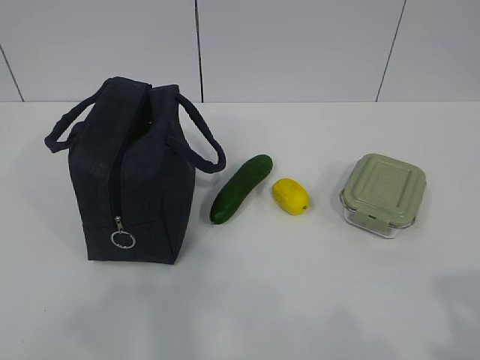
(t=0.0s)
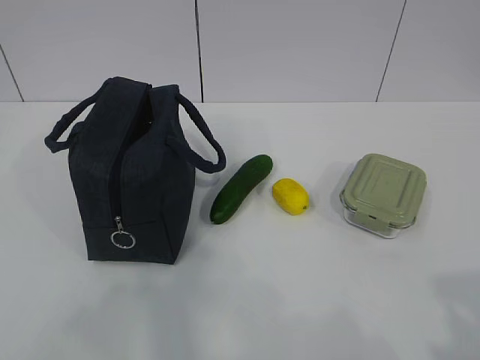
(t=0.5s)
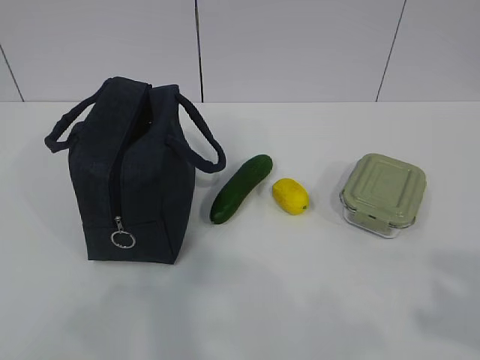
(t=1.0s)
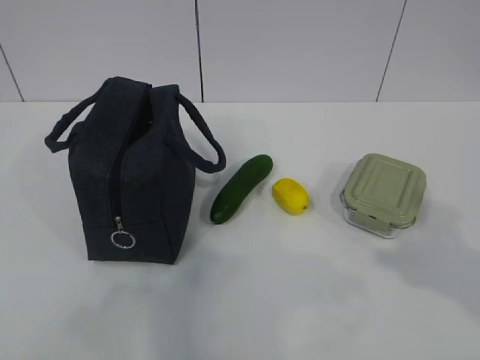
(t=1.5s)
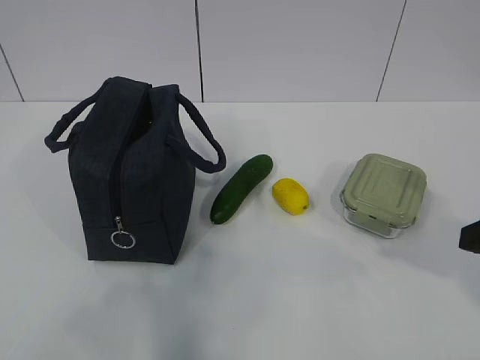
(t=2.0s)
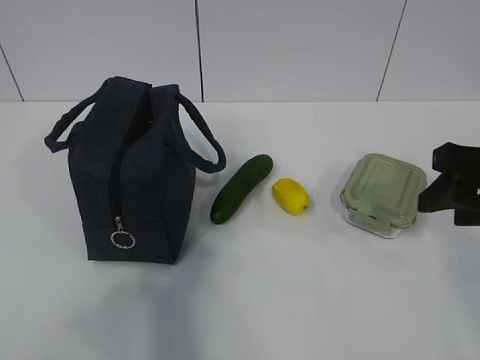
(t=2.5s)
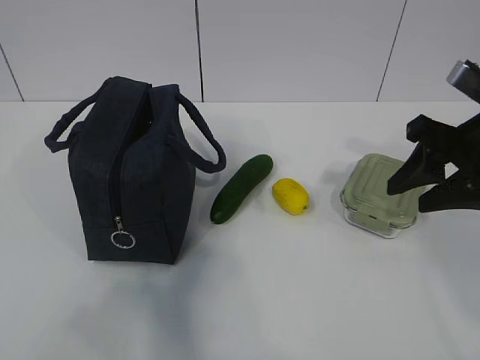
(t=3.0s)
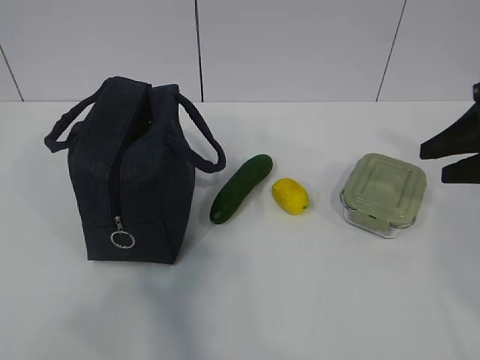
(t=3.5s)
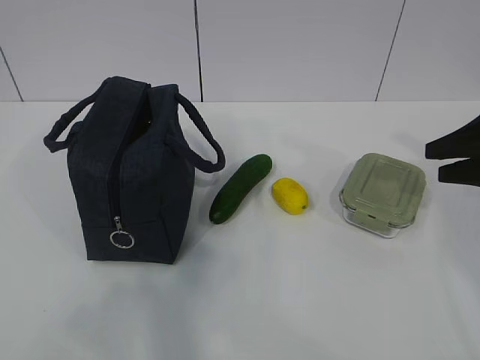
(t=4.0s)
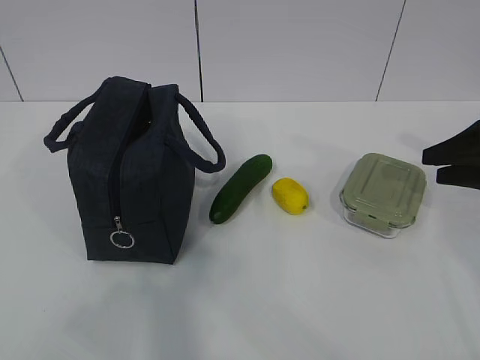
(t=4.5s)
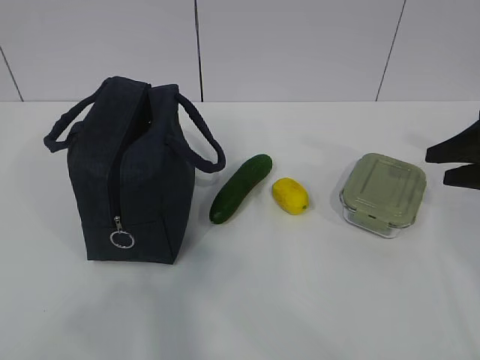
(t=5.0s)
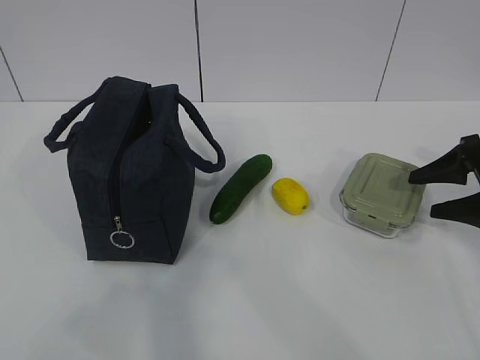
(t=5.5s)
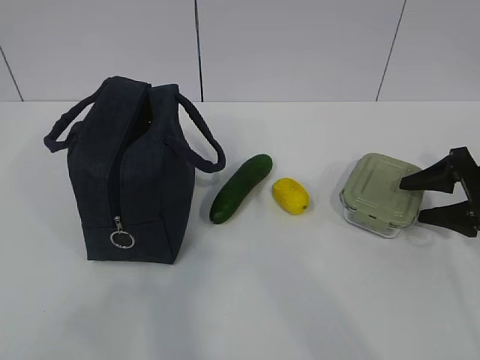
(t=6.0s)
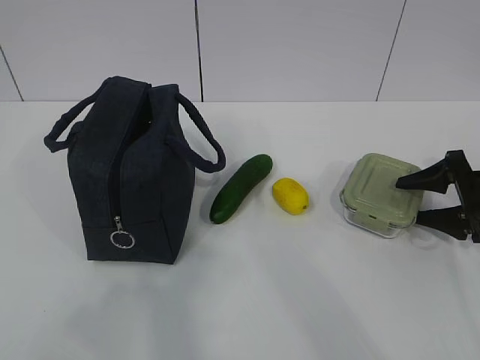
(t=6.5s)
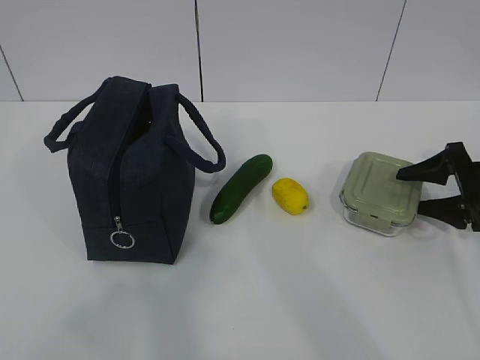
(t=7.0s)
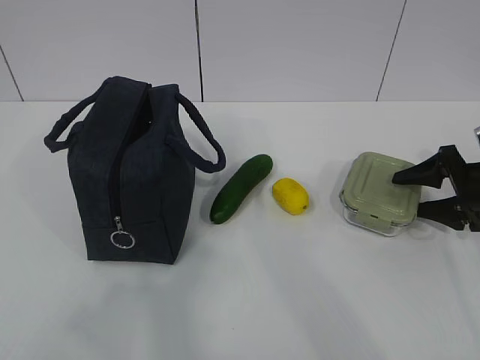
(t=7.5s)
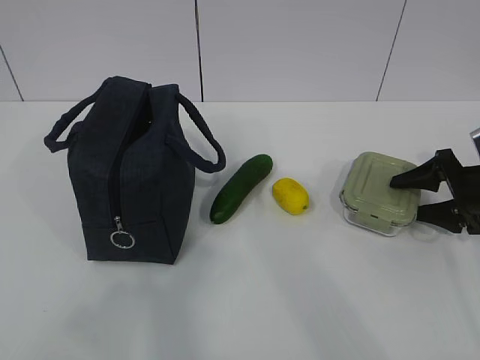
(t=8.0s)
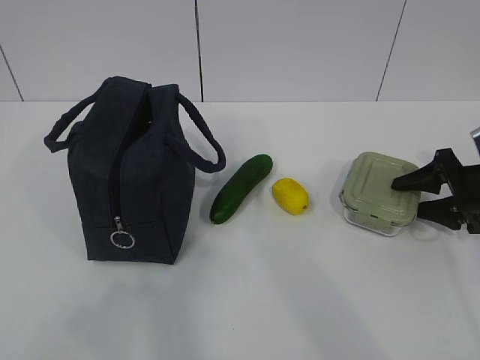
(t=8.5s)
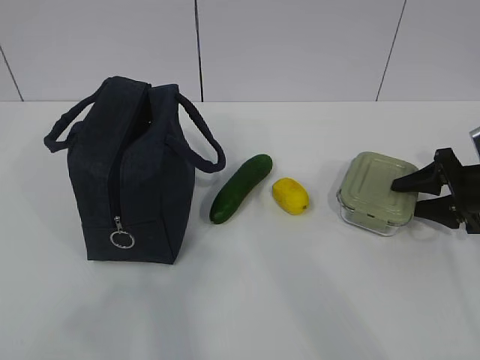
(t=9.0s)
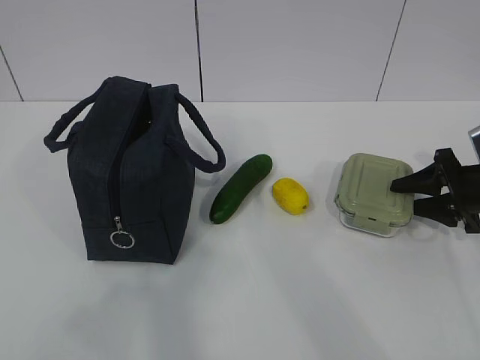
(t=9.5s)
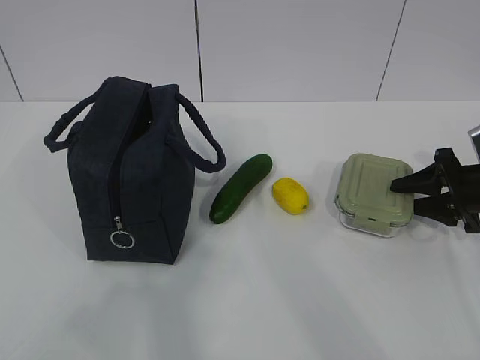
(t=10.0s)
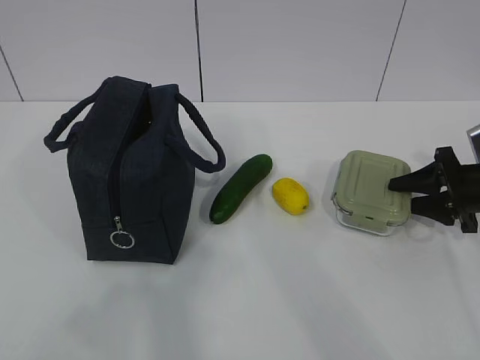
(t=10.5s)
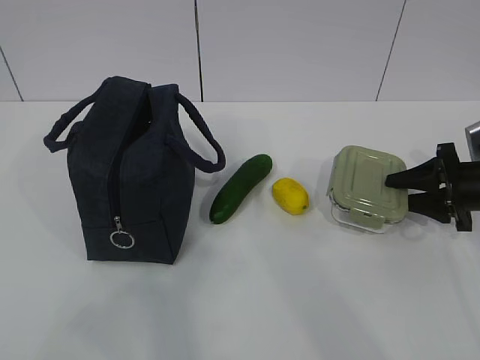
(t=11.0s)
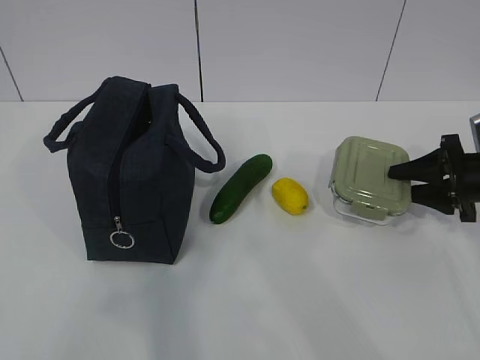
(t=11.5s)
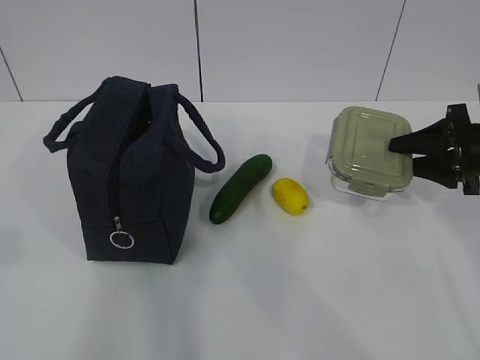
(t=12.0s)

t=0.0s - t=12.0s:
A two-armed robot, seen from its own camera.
Step, t=0.0s - t=8.5s: Grab the lunch box with your right hand.
Step, t=9.0s - t=11.5s: Grab the lunch bag with your left hand.
t=2.0s - t=4.0s: The right gripper is displaced forward and to the right by roughly 15 cm.
t=4.0s - t=6.0s: The right gripper is displaced downward by roughly 10 cm.
t=6.0s - t=8.0s: The grippers move only a little.
t=8.0s - t=10.0s: The right gripper closes.
t=10.0s - t=12.0s: The right gripper travels upward by approximately 5 cm.

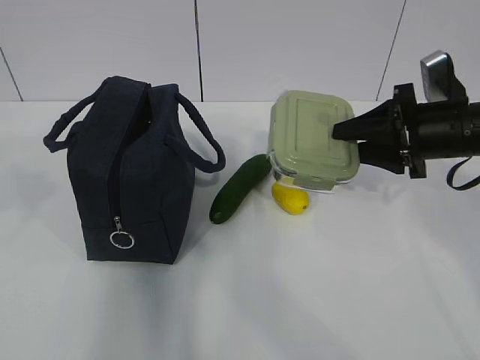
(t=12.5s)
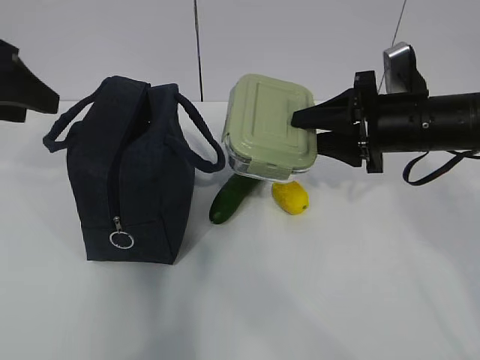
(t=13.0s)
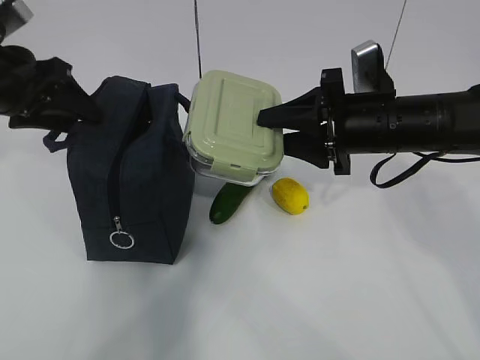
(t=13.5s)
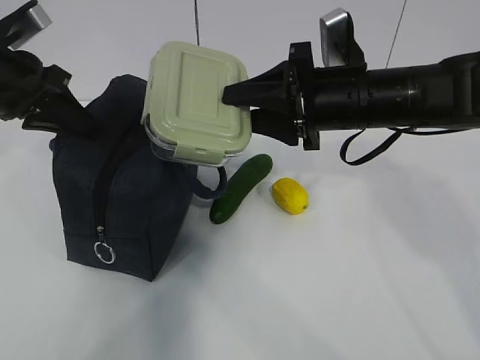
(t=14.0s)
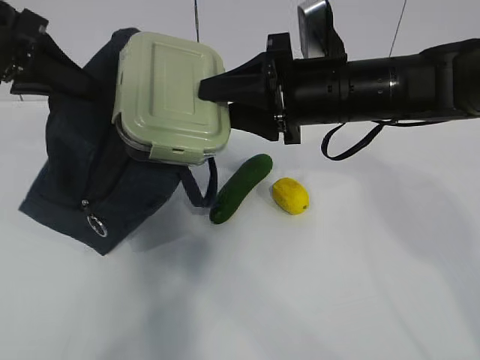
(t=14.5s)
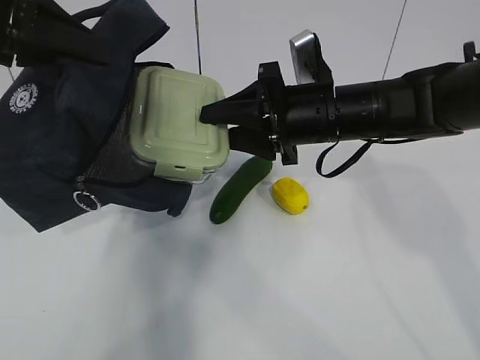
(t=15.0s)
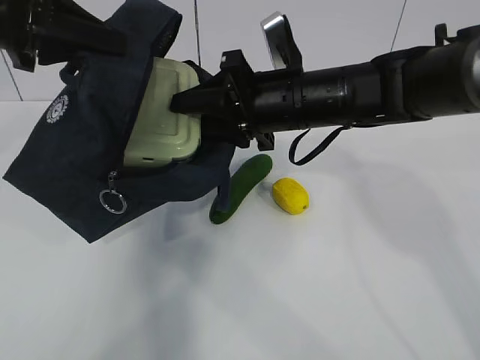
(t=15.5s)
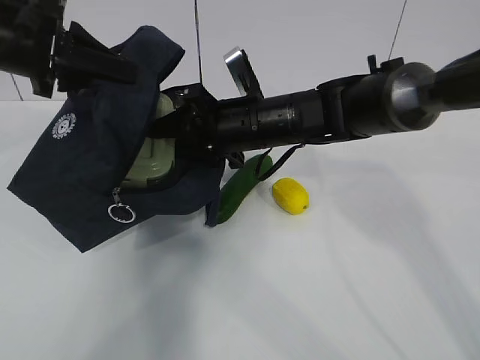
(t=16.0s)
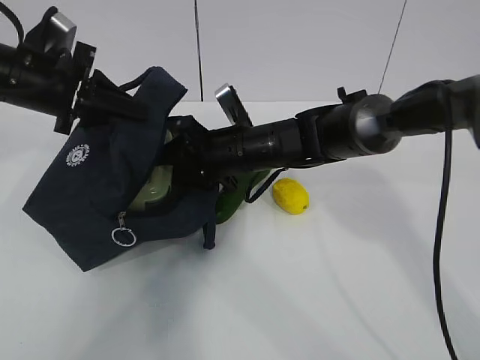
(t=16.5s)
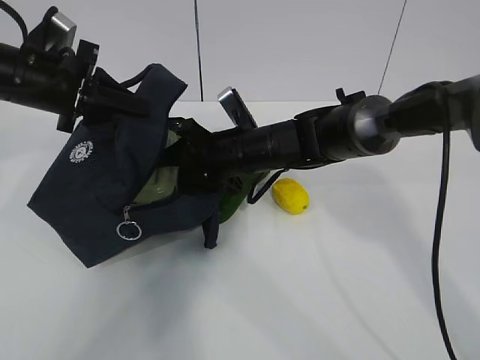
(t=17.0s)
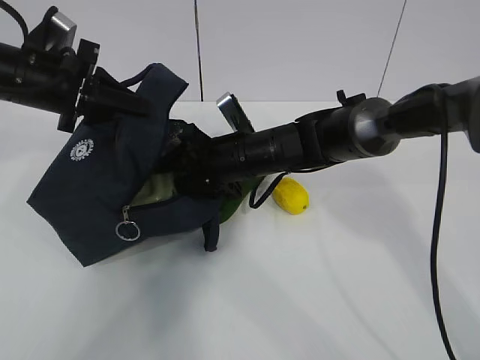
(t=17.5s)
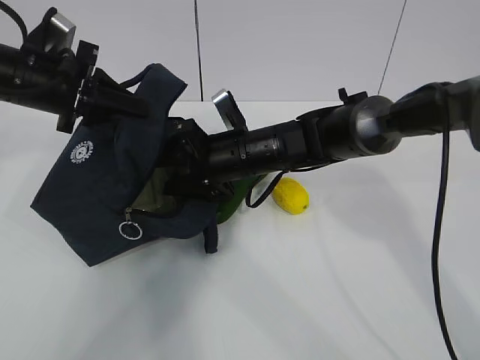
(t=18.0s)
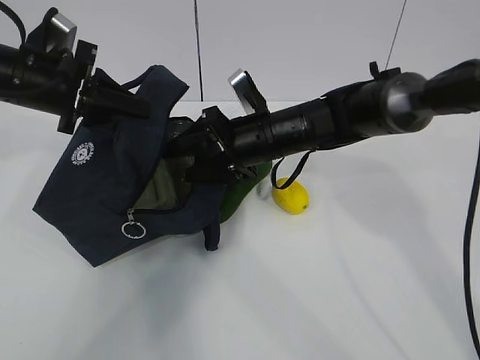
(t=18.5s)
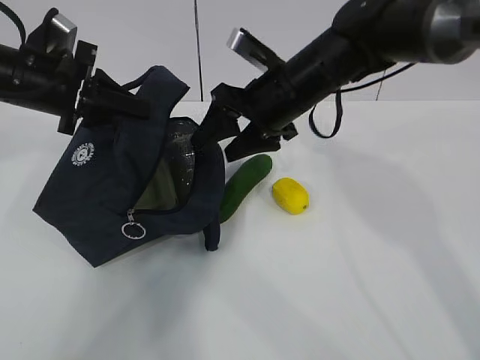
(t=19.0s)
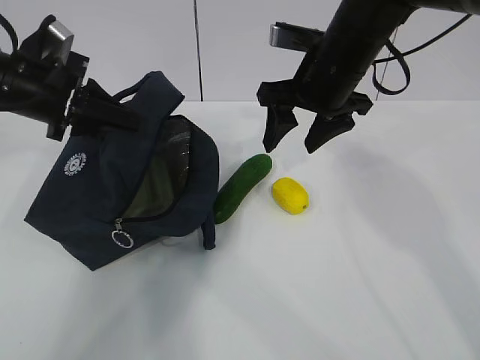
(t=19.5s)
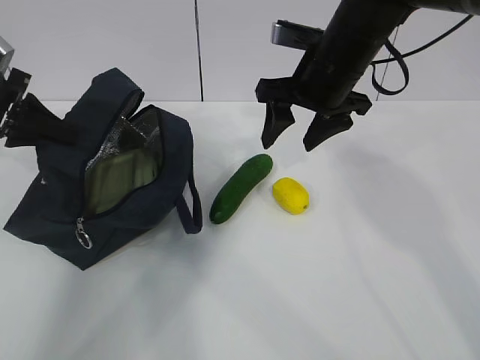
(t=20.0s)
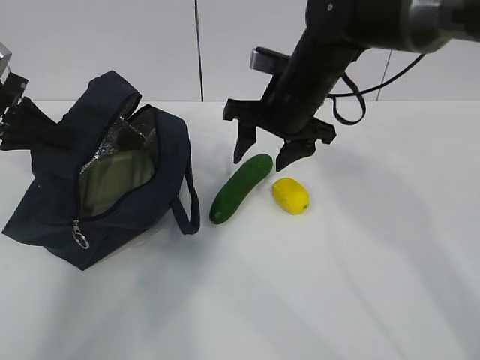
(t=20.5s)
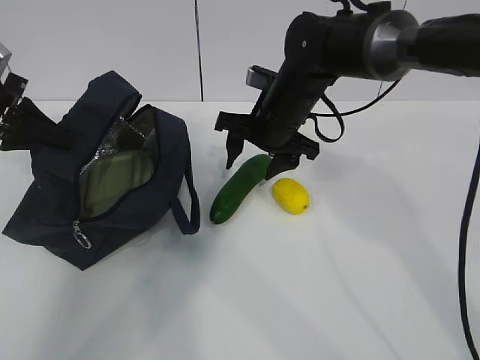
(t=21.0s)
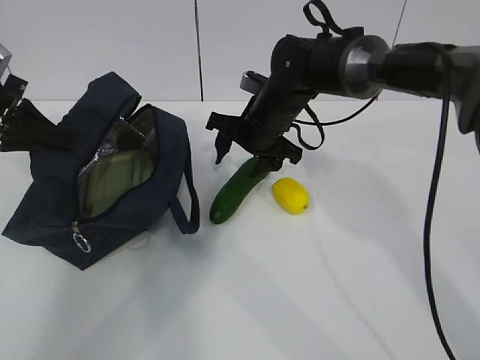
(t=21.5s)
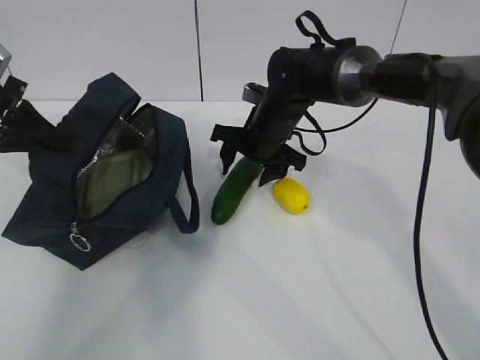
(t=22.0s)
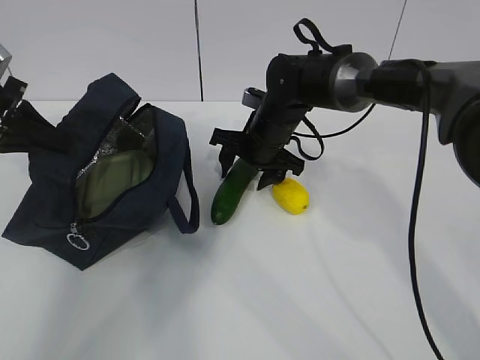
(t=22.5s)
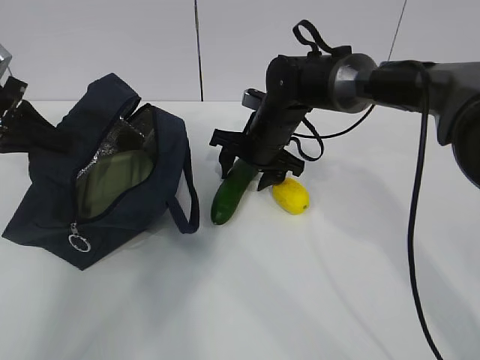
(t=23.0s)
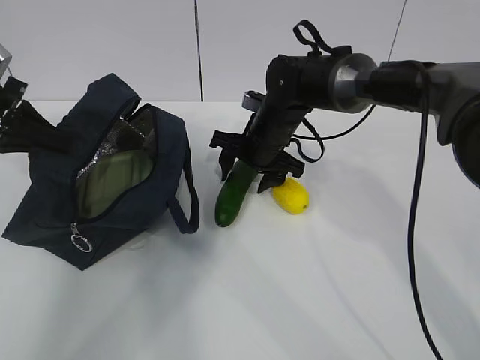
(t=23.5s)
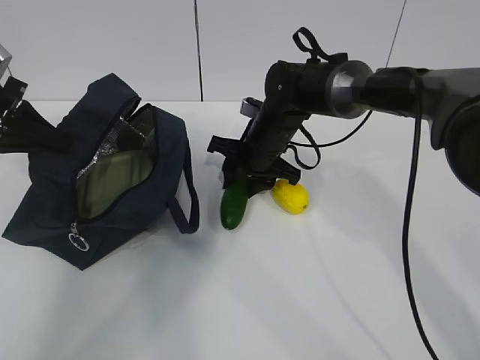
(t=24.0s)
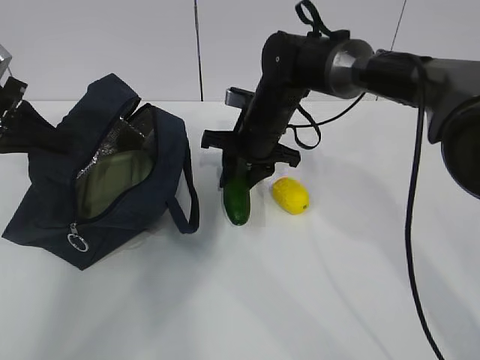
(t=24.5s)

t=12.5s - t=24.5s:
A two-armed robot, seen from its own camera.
Step, t=12.5s - t=14.5s: Place it into the bag with your right hand.
Step, t=15.0s - t=20.0s: Grab the cucumber with your right hand.
t=12.5s - t=14.5s: The left gripper is displaced forward by roughly 15 cm, and closes up; the right gripper shifts about 15 cm to the left.
t=14.5s - t=16.5s: The left gripper travels downward by roughly 5 cm. Meanwhile the right gripper travels downward, to the left and forward by about 15 cm.
t=16.5s - t=18.5s: The grippers make only small movements.
t=18.5s - t=20.5s: The right gripper heads upward, covering some 5 cm; the left gripper is displaced to the left by some 10 cm.
t=20.5s - t=22.5s: The right gripper shifts approximately 10 cm downward.
t=22.5s - t=24.5s: The right gripper closes its fingers.

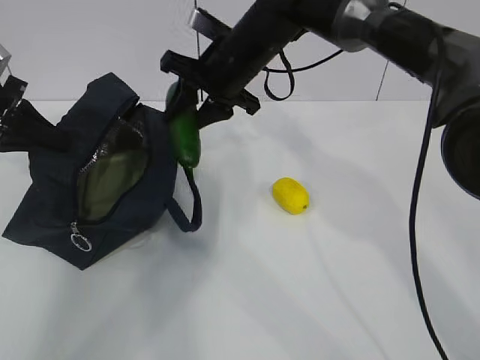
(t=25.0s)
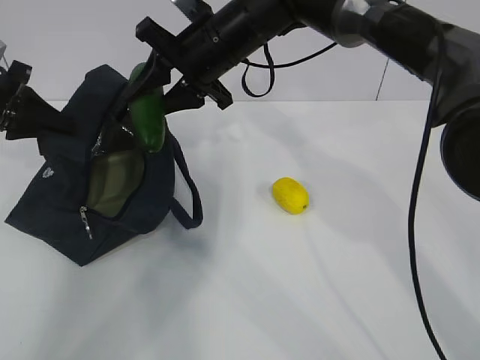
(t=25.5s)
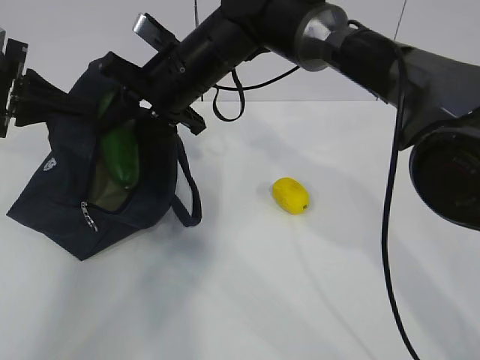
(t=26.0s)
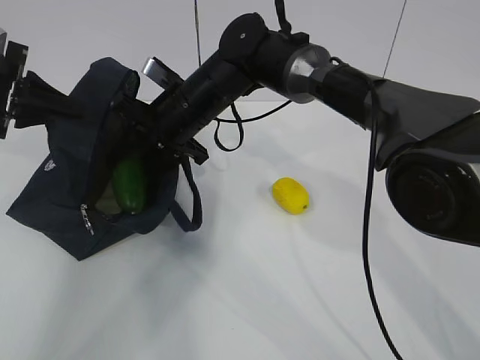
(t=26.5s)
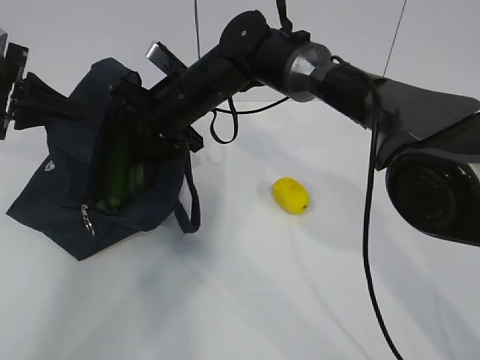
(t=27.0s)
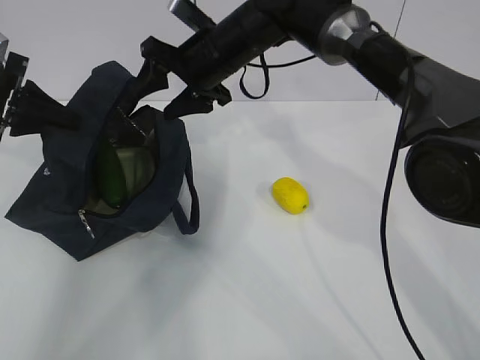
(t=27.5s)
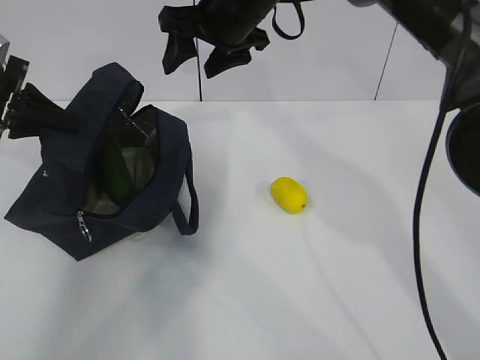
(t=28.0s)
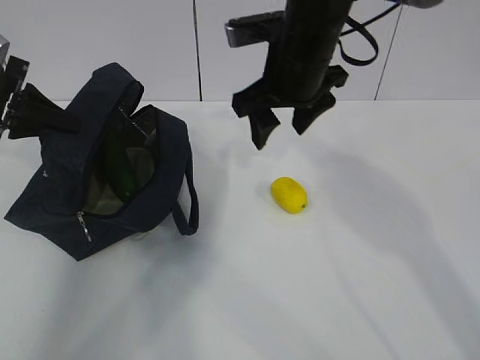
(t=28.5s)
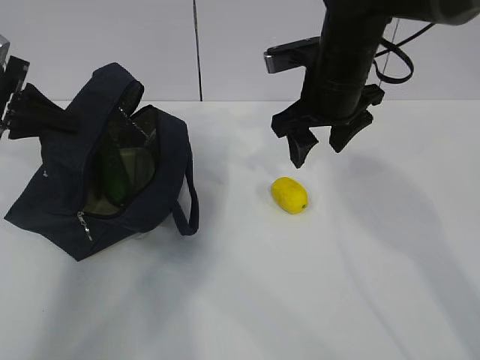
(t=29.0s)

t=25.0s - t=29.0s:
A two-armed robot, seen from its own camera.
Step, t=25.0s - t=26.0s: Grab the lemon with your right hand.
t=25.0s - t=27.0s: The right gripper heads to the left, covering about 5 cm, and opens its fingers.
t=27.0s - t=29.0s: The right gripper moves to the right, some 15 cm.
